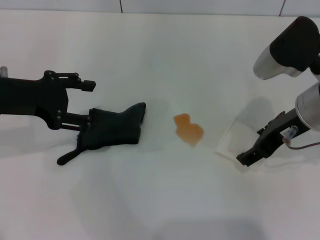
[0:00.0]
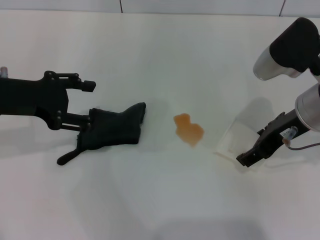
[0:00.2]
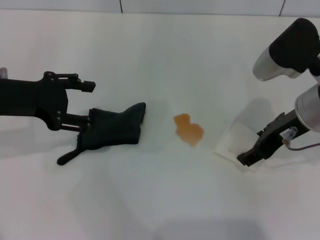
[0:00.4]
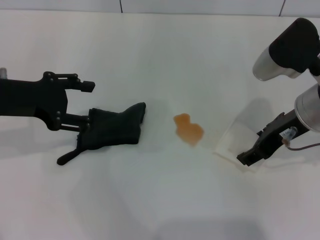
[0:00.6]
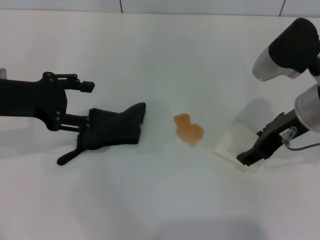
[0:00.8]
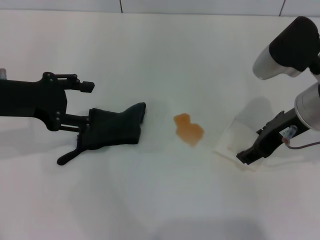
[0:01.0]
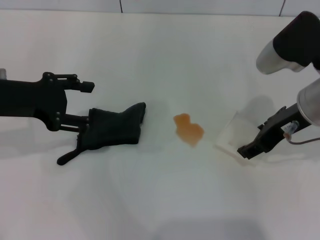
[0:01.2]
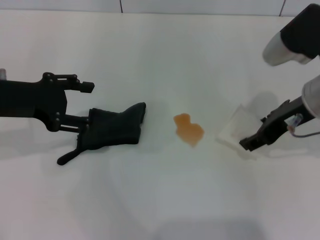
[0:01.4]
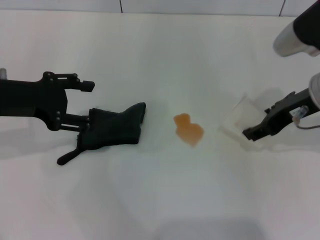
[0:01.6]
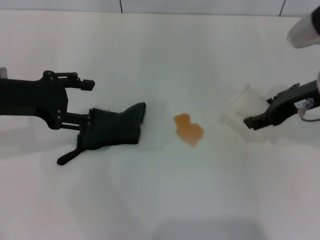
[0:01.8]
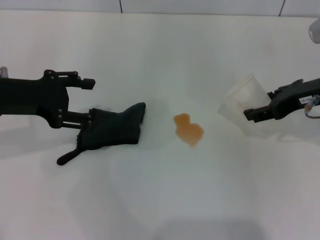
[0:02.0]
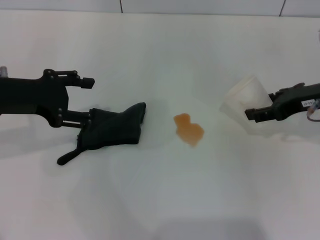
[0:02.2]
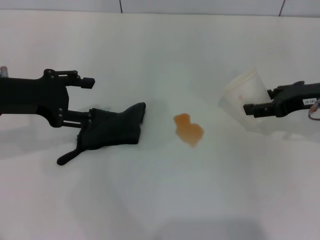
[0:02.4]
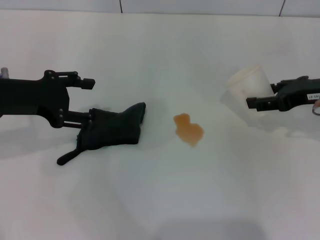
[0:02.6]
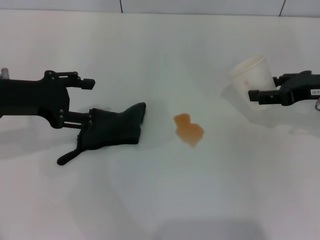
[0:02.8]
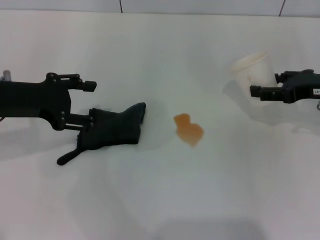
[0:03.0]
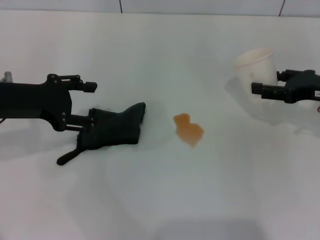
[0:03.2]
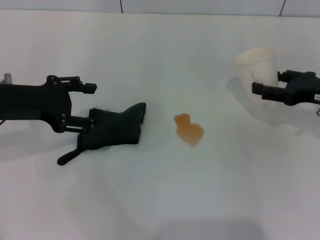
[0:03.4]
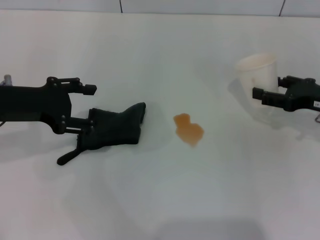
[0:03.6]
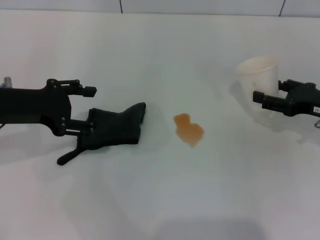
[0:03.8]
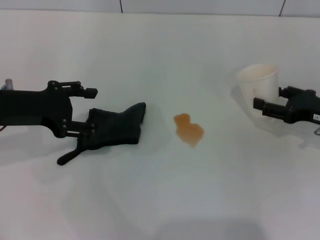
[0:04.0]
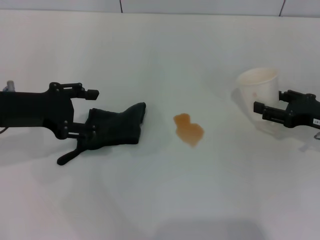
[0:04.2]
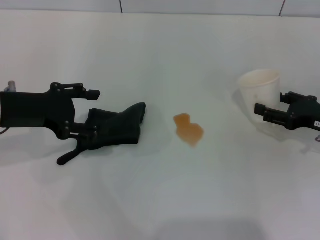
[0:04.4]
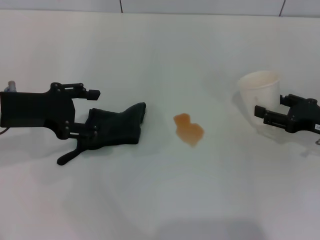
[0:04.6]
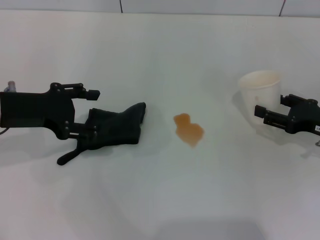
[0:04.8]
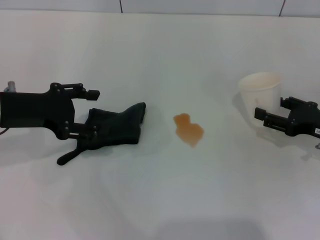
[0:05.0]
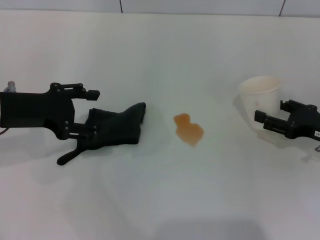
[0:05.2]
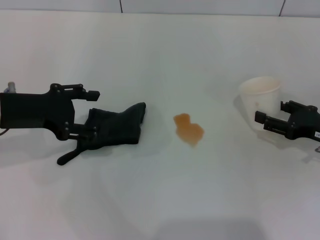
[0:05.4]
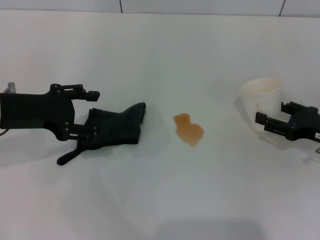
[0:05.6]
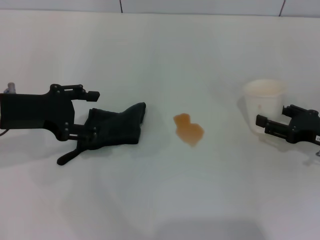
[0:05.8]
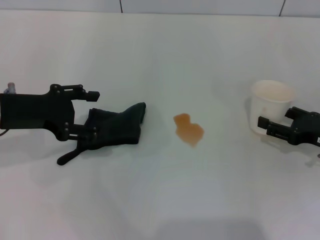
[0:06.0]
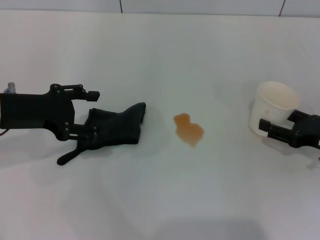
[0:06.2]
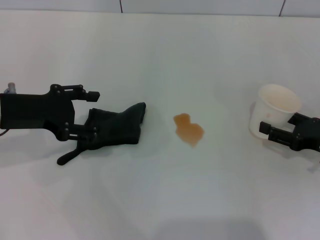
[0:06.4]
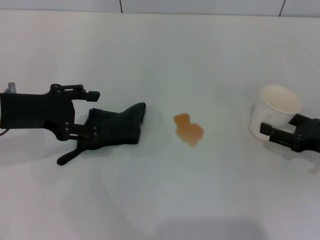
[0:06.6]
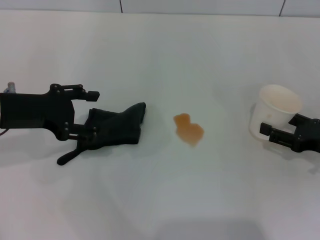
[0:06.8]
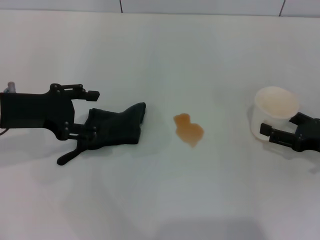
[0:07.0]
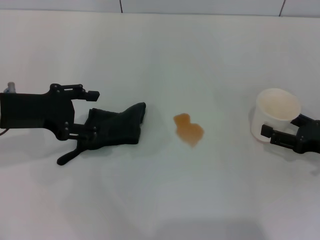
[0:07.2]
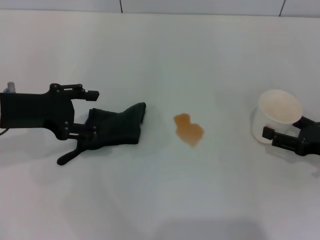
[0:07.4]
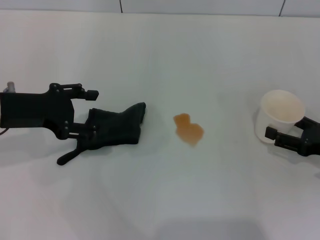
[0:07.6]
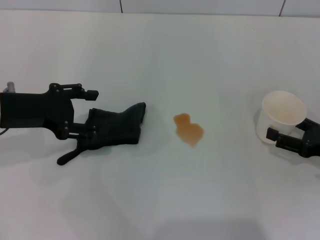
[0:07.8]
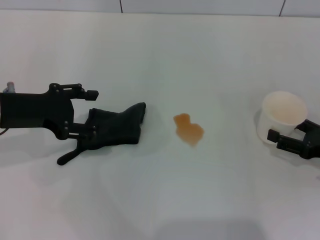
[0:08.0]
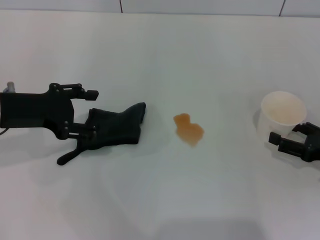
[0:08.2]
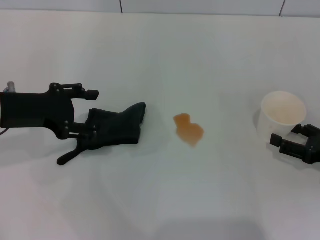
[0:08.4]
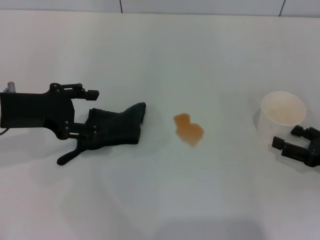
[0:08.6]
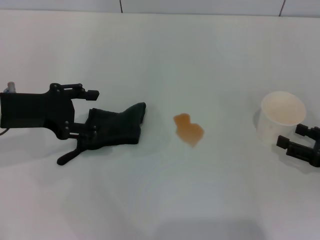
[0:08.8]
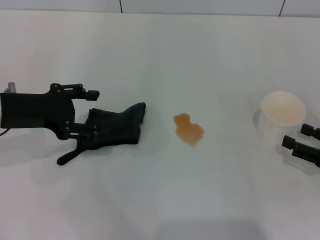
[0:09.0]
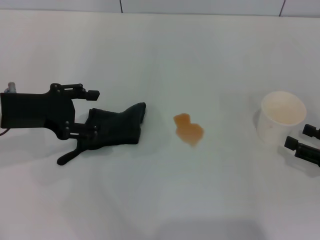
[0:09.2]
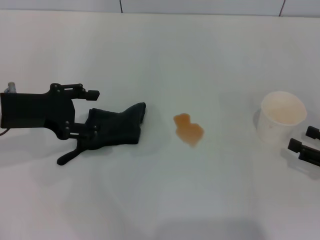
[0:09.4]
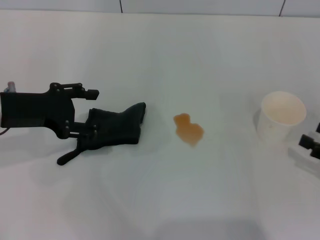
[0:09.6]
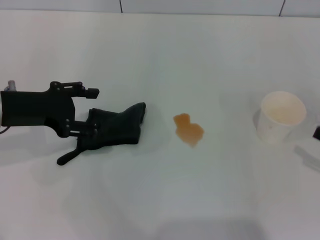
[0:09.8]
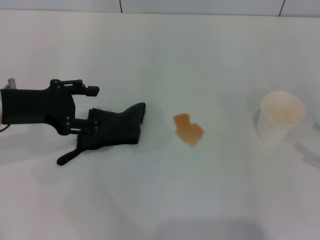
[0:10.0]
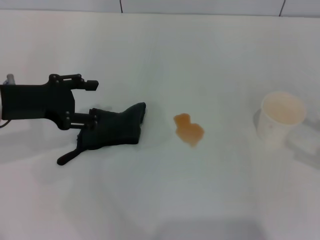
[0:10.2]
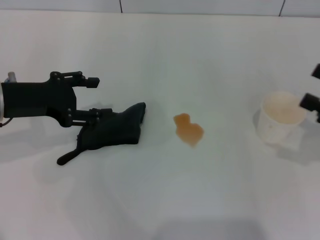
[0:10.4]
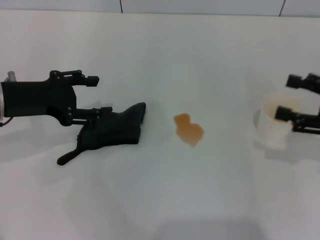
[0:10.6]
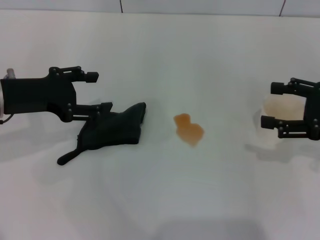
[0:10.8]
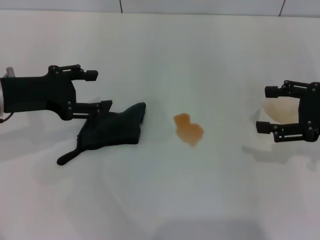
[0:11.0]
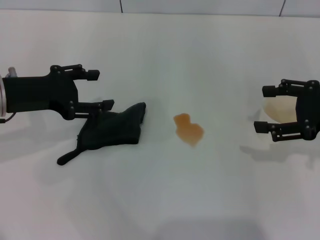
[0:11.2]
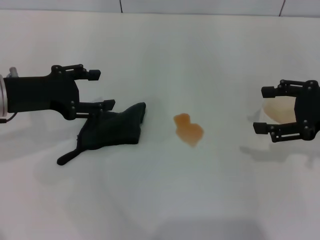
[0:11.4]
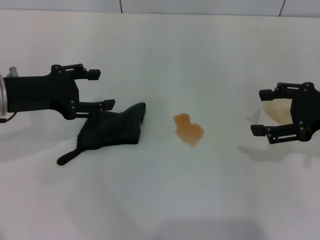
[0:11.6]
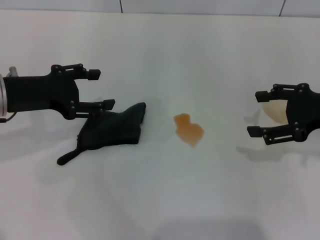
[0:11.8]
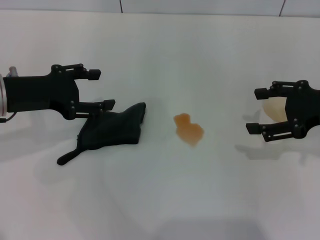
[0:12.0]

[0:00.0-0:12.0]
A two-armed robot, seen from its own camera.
Step, 0:01.2 to 0:09.0: Stand the paper cup upright with the right gripper.
0:00.0 to 0:01.6: The grippers make only small movements.
0:01.6 to 0:03.0: The right gripper shifts about 10 cm to the right.
0:03.0 to 0:04.4: The right gripper shifts approximately 5 cm downward.
0:04.4 to 0:06.0: The grippers move only a little.
0:06.0 to 0:07.6: The right gripper opens its fingers.
0:07.6 to 0:09.0: The grippers make only small movements.
0:09.0 to 0:10.4: The right gripper travels upward by approximately 10 cm.
0:10.4 to 0:12.0: The right gripper moves forward and to the left, roughly 10 cm.

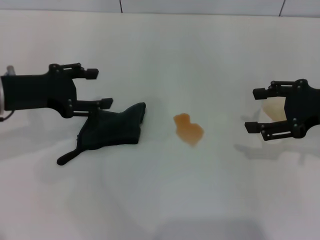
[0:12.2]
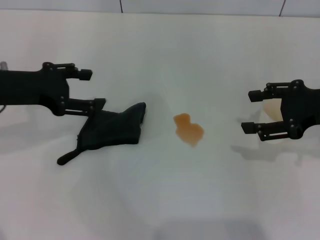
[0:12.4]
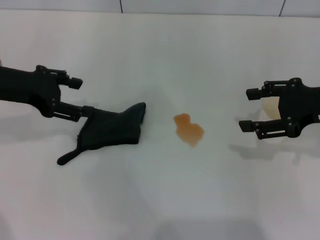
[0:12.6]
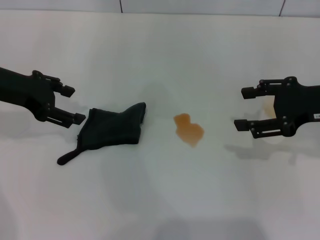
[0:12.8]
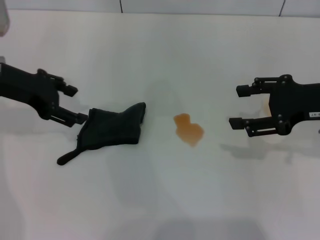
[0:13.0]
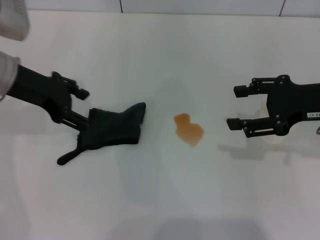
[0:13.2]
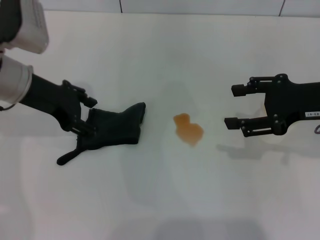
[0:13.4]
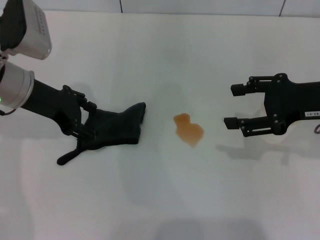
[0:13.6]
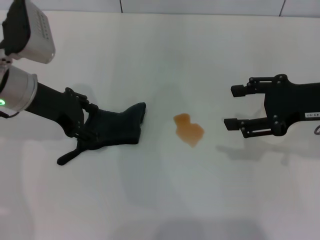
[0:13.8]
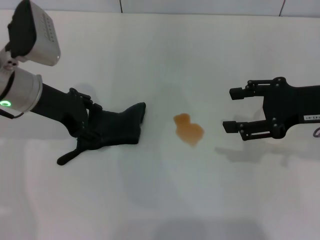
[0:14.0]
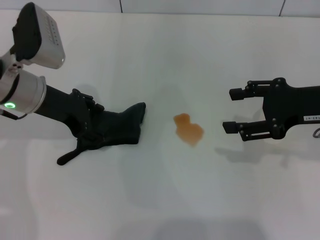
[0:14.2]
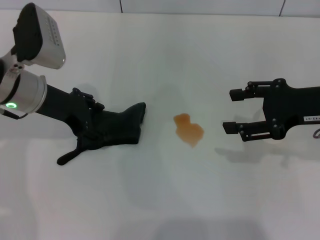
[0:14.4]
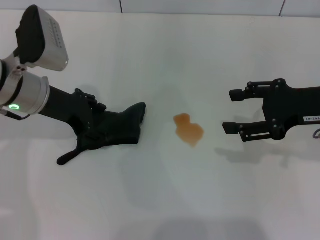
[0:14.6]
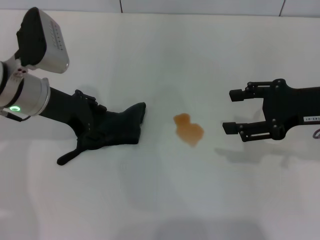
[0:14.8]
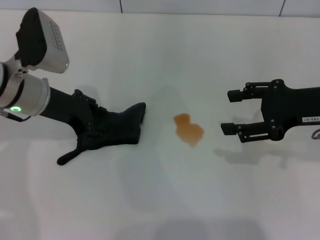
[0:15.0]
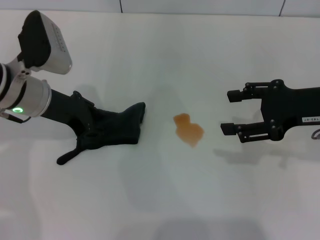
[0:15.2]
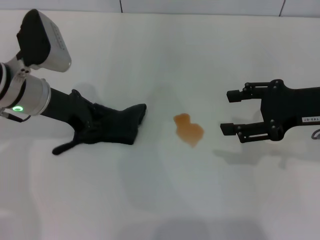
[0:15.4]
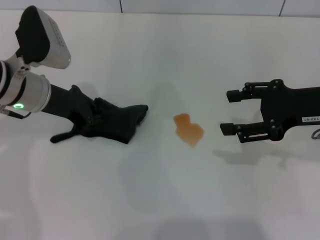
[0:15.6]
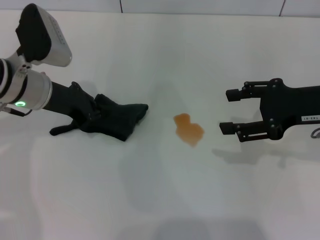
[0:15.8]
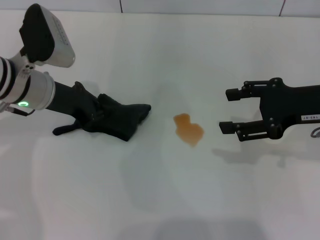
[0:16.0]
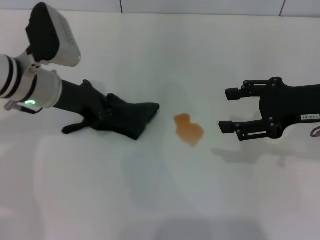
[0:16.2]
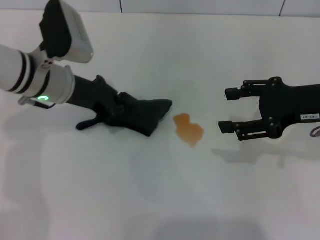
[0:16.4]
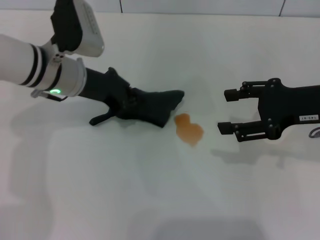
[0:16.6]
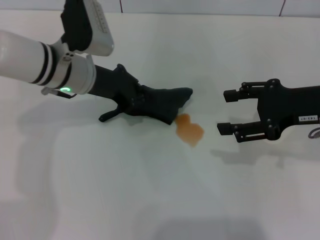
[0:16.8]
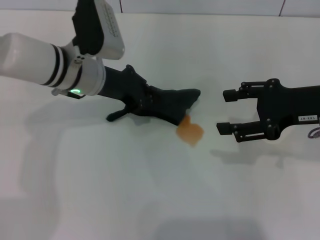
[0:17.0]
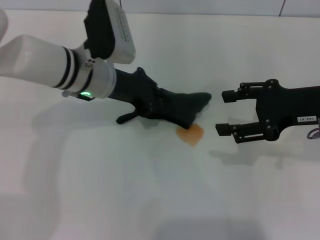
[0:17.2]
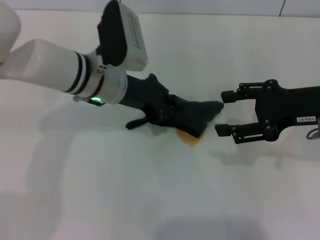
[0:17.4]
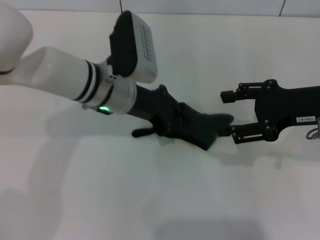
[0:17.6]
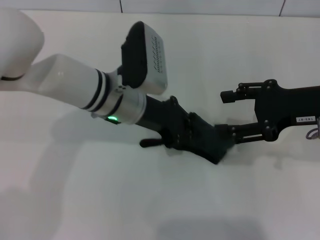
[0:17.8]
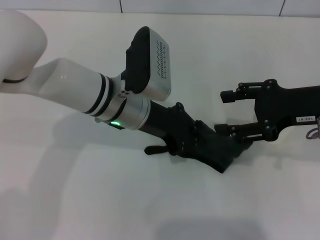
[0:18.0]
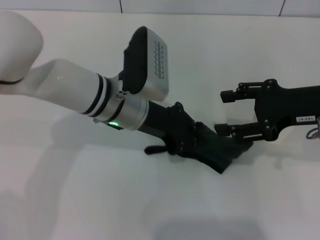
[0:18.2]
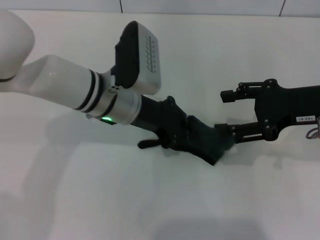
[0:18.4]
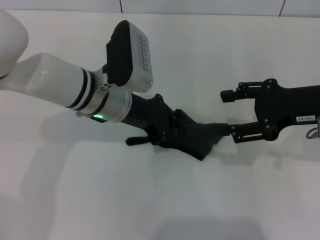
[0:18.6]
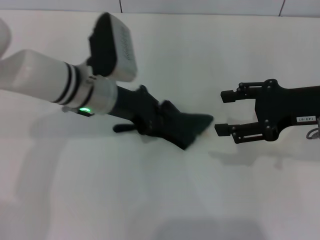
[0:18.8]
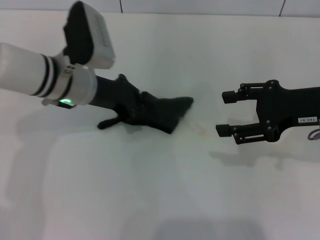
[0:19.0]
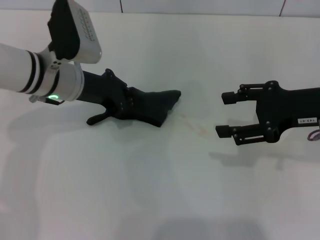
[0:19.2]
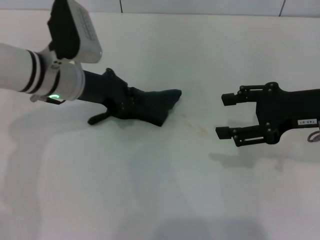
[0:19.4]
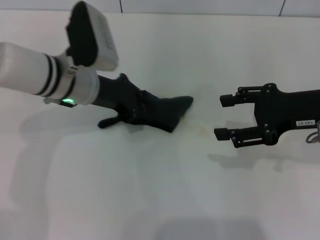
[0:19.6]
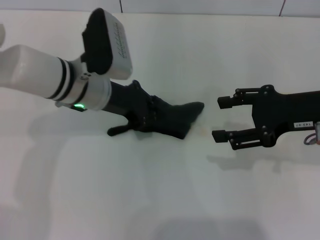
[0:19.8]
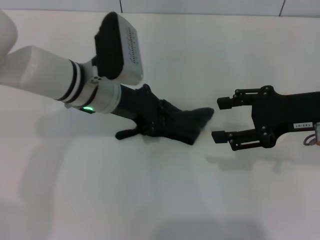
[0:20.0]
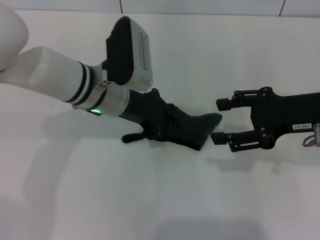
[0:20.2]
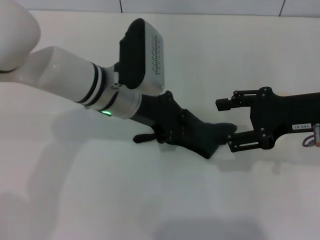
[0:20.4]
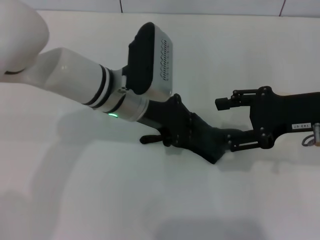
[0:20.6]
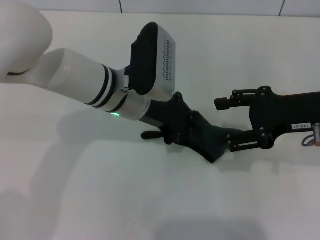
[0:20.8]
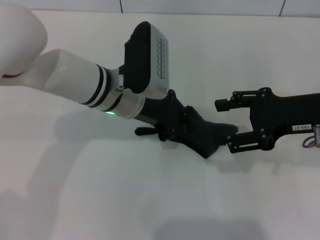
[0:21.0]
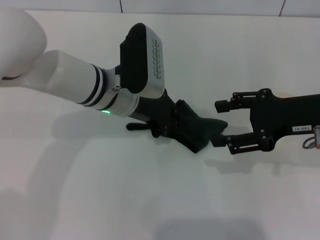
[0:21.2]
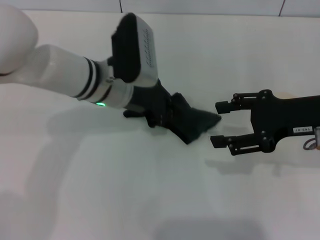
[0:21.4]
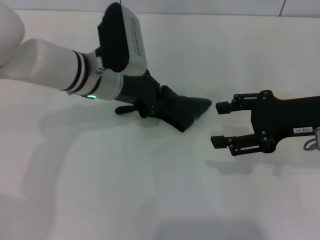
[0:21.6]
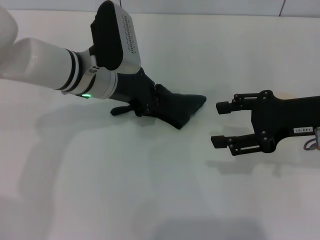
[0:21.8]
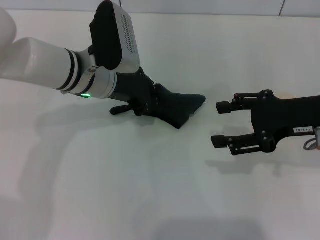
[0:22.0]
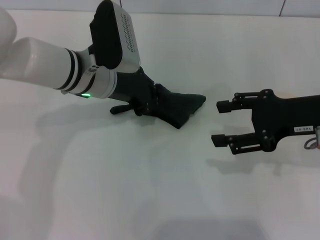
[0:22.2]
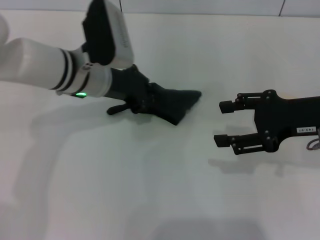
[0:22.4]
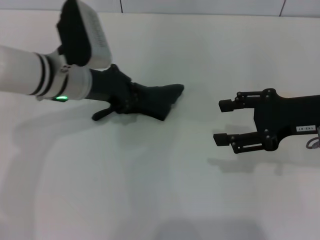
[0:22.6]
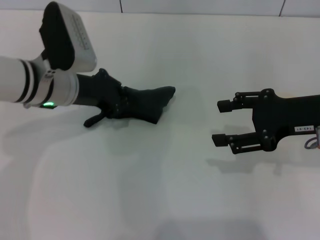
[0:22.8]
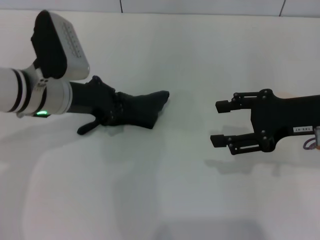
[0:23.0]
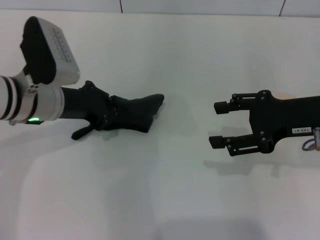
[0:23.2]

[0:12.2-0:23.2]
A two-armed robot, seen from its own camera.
Step, 0:12.2 to 0:15.6: Grasp the rag with the left gripper.
0:12.2 to 0:13.8: The right gripper closes up. Meanwhile the left gripper changes place by approximately 5 cm.
0:13.8 to 0:15.4: The left gripper closes.
0:15.4 to 0:17.0: The left gripper is displaced to the right by approximately 5 cm, and closes its fingers.
0:17.0 to 0:18.4: The left gripper moves roughly 5 cm.
0:18.4 to 0:20.0: The left gripper travels to the left and back again, approximately 10 cm each way.
0:20.0 to 0:21.6: The grippers stay close to where they were, moving slightly.
0:21.6 to 0:23.2: The left gripper heads to the left, covering approximately 10 cm.
